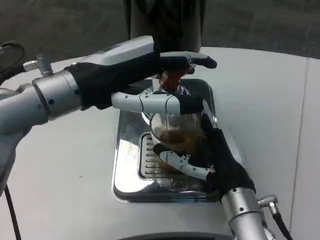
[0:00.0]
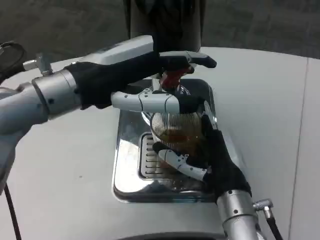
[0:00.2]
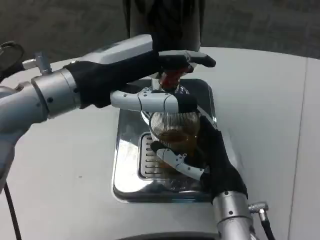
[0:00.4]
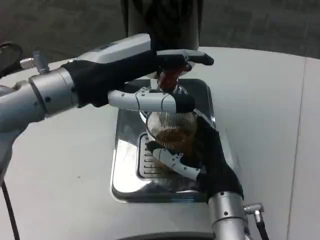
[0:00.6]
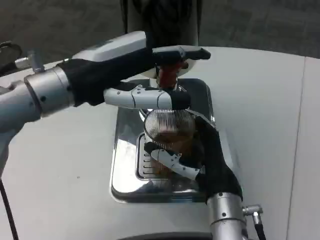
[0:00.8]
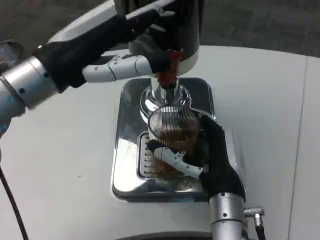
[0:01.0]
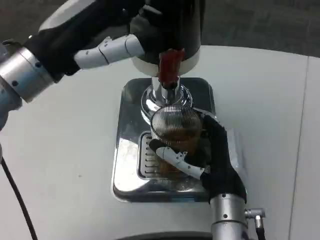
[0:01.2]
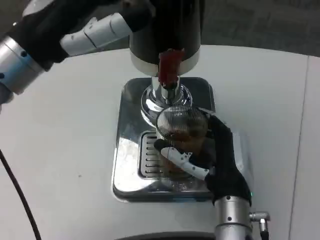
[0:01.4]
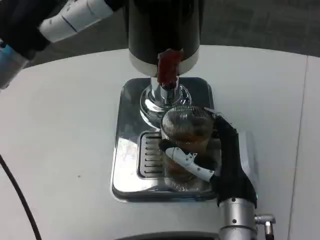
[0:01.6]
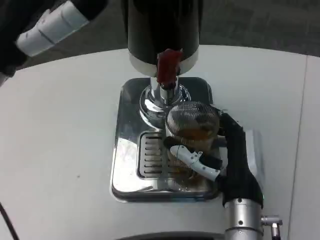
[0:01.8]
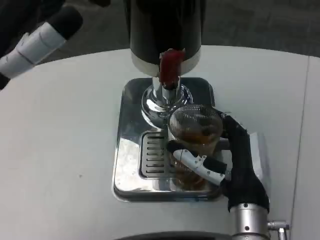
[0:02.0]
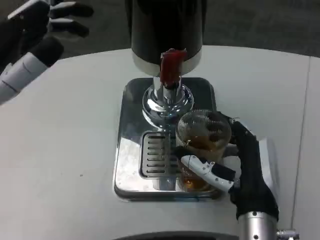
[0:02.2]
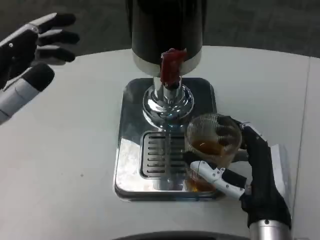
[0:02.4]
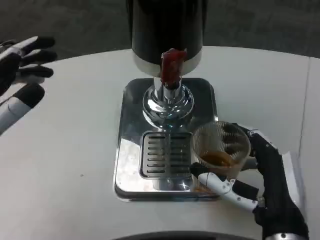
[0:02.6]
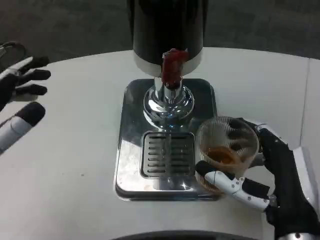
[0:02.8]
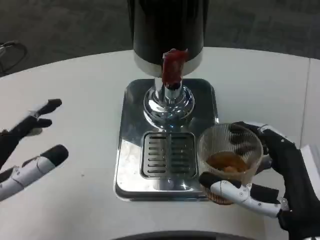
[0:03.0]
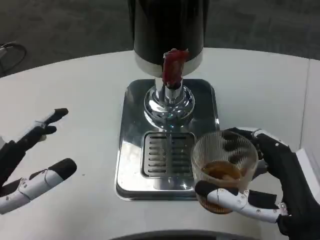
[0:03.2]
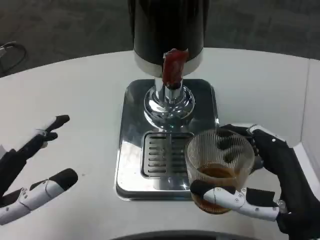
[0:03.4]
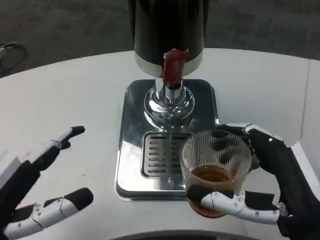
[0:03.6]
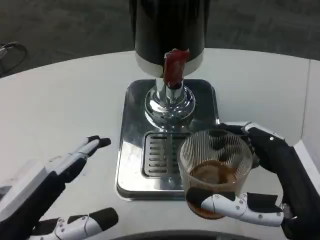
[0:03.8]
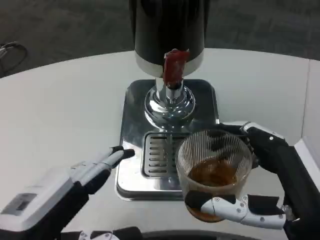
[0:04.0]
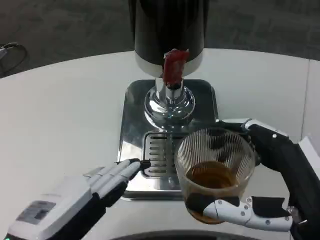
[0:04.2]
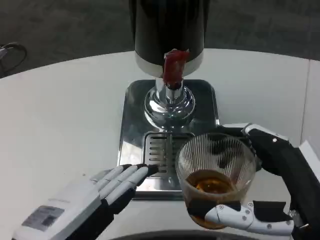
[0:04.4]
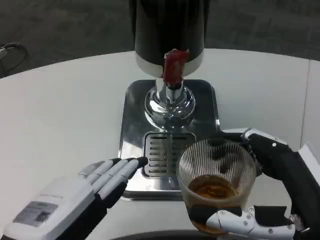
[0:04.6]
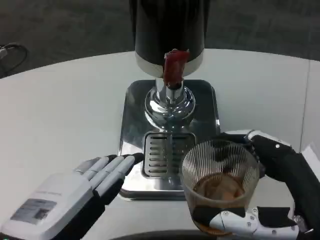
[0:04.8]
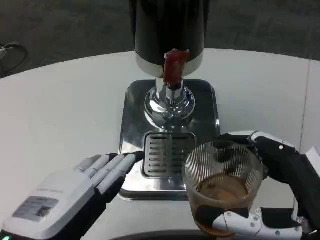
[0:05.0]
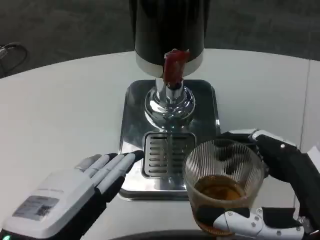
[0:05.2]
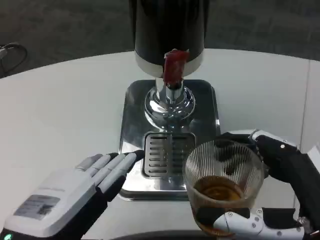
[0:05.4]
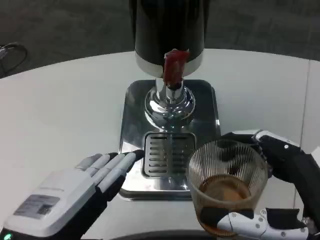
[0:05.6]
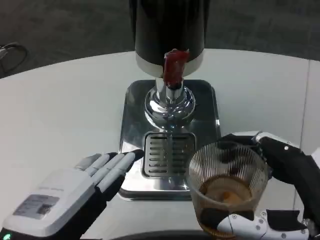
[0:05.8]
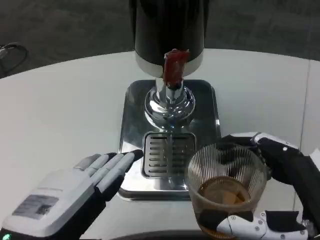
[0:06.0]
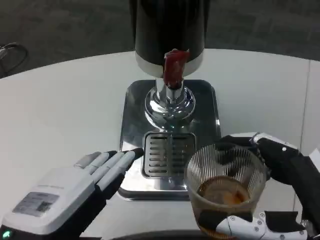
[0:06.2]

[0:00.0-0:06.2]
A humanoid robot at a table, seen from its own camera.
Task of the whole recording: Grasp the cup under the faucet to collect the drink, then remove the cup.
1.6 to 3.2 s: The left hand travels downward and backward by some 20 cm; the right hand is displaced backward and to the right by roughly 10 cm.
3.2 to 4.6 s: The right hand ends up approximately 5 cm from where it was; the left hand heads to the right, covering roughly 5 cm.
4.6 to 6.2 s: Both hands stay about where they are.

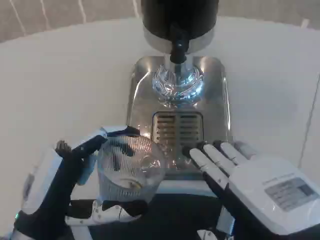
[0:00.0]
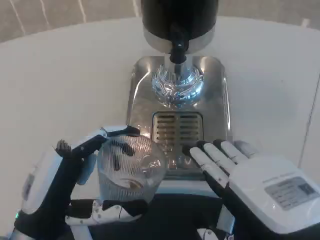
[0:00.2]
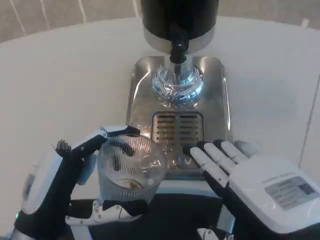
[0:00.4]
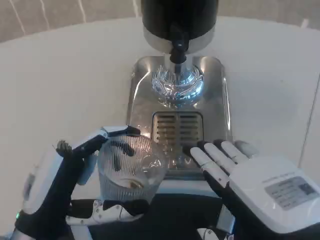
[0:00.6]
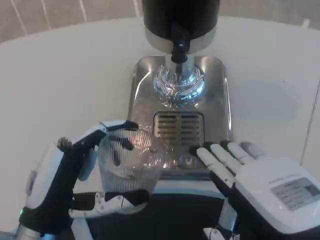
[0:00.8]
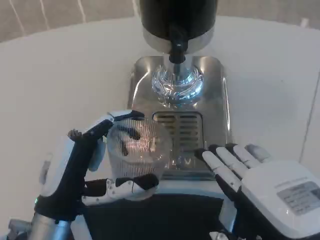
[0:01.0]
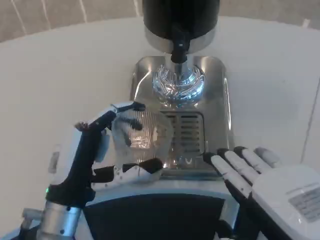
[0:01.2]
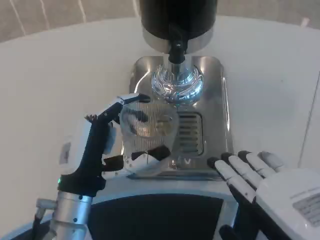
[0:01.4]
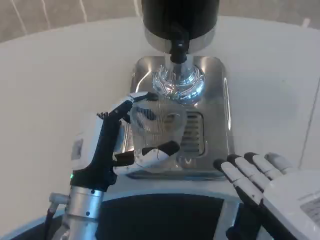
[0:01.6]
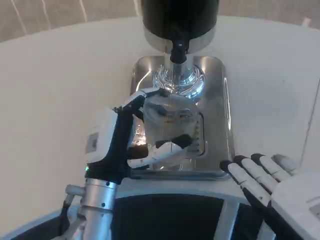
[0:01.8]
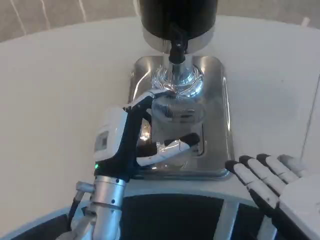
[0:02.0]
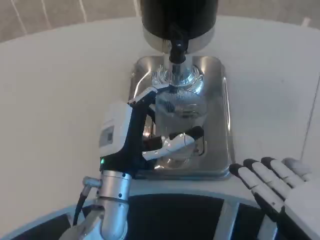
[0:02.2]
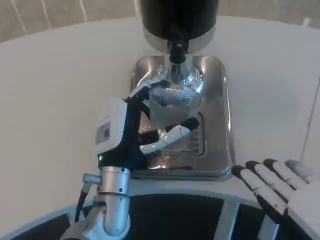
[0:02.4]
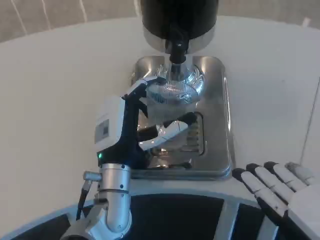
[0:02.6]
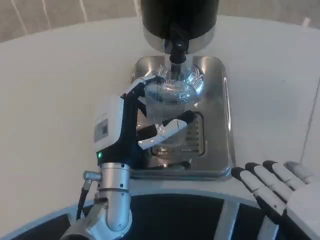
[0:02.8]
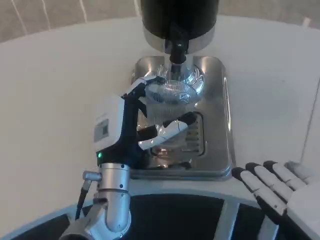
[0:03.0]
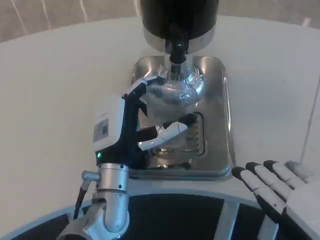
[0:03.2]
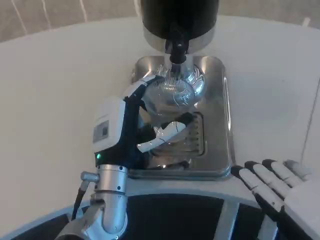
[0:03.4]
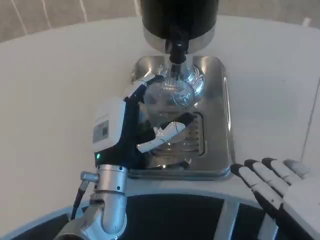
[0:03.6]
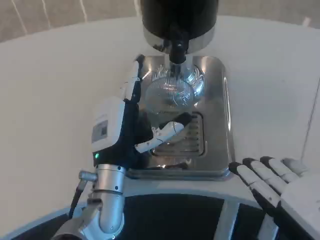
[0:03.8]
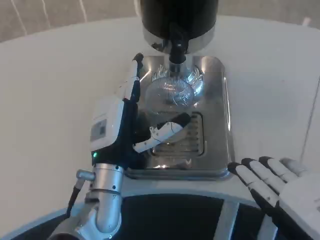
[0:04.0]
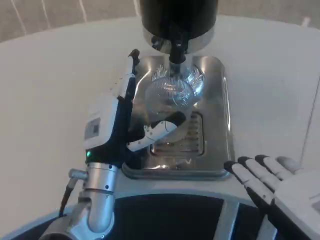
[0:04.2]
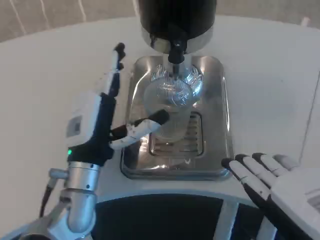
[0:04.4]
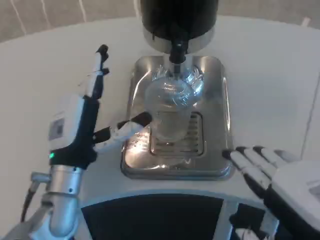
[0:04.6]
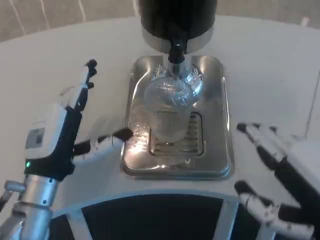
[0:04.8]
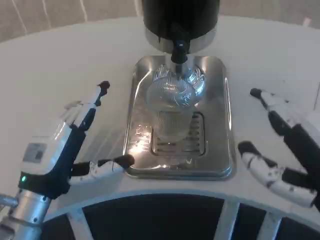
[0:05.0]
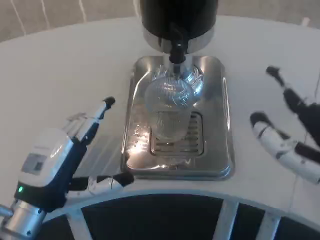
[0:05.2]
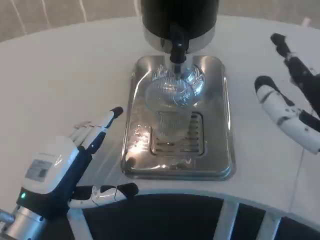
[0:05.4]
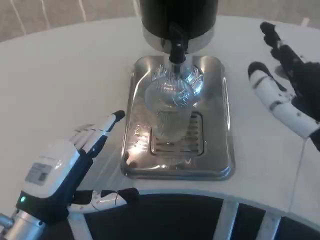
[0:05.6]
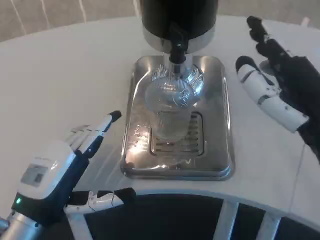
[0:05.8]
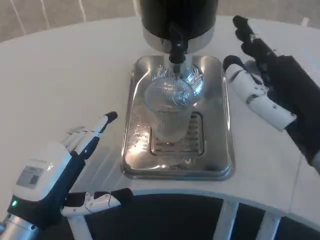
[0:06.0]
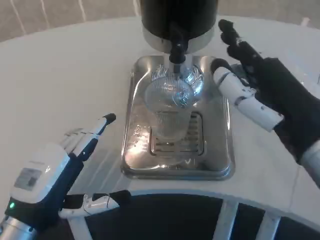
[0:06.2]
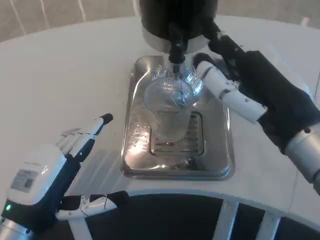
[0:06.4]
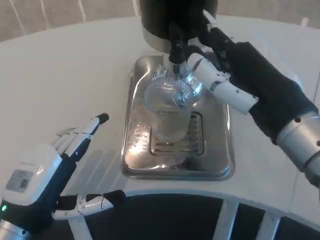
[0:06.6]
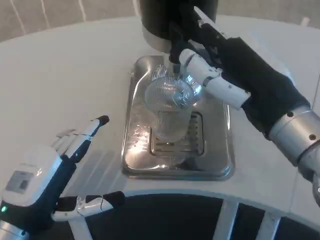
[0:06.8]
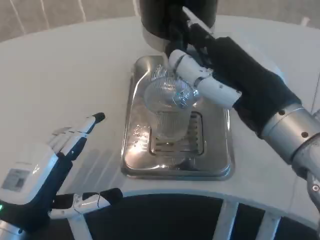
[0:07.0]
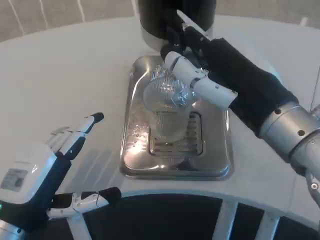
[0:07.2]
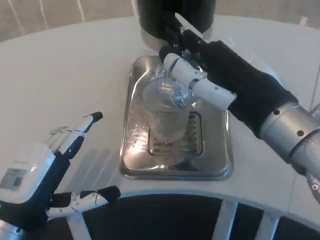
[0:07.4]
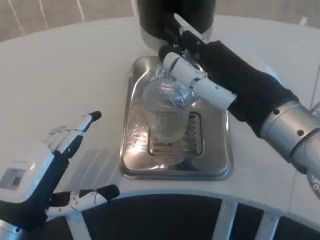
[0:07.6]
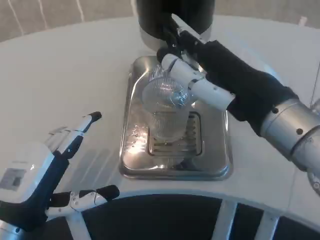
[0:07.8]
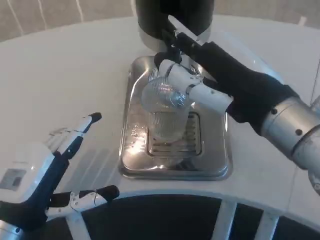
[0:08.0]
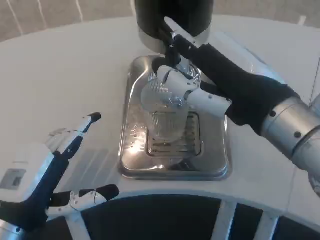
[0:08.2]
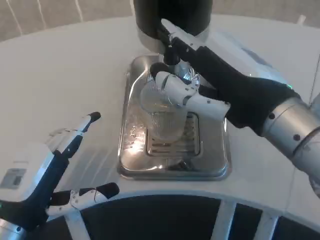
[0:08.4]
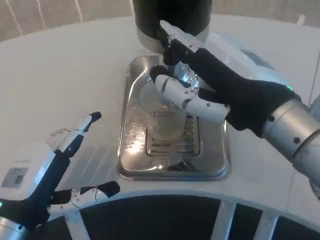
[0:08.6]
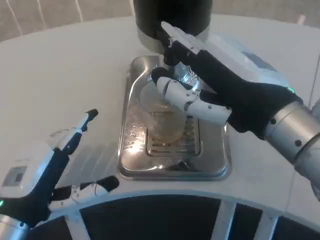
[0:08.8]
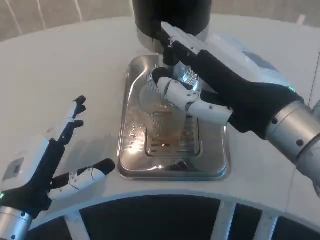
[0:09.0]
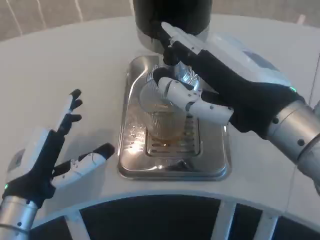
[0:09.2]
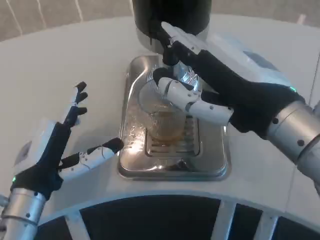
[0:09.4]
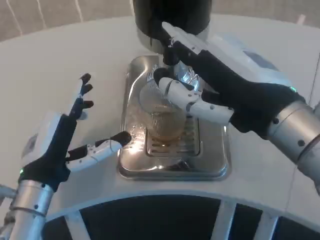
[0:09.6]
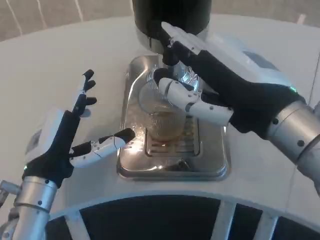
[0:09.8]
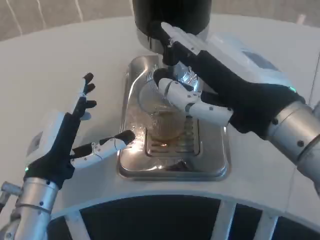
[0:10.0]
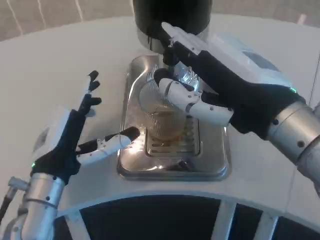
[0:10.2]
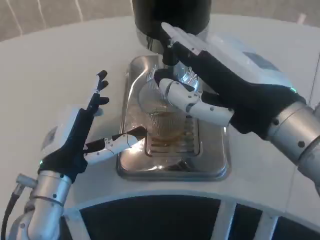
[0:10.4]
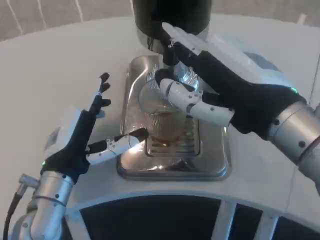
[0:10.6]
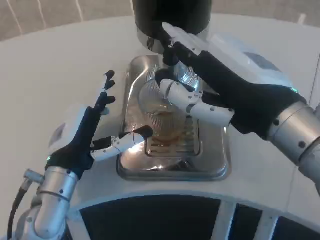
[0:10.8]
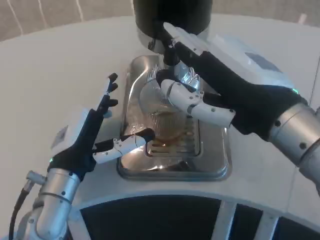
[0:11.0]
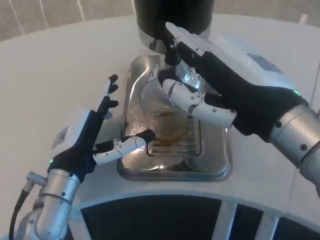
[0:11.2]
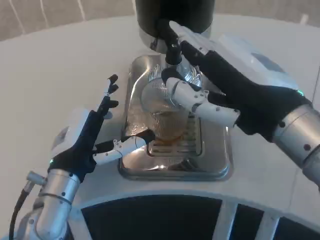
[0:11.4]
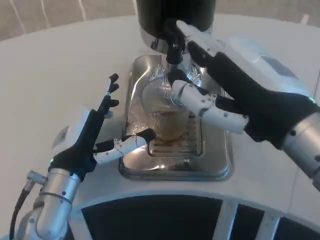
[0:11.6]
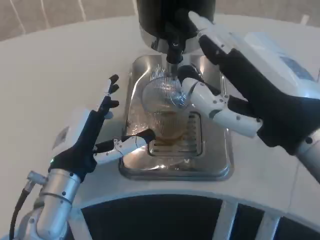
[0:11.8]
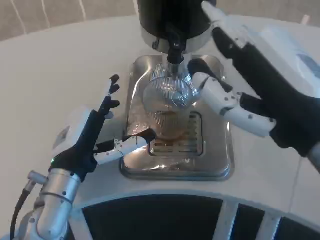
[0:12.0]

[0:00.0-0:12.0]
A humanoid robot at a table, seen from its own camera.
Task of the whole recording: Grasp the cup under the faucet to collect the drink, then remove the cup.
0.0 to 1.6 s: The left hand heads forward and to the right, covering roughly 10 cm.
1.6 to 3.0 s: The left hand moves roughly 5 cm.
3.0 to 4.4 s: The left hand moves to the left, some 5 cm.
4.4 to 6.0 s: The left hand is displaced to the left and backward by about 10 cm; the right hand heads forward, covering about 10 cm.
6.0 to 7.6 s: The right hand shifts by some 5 cm.
9.0 to 10.4 s: The left hand changes place by some 5 cm.

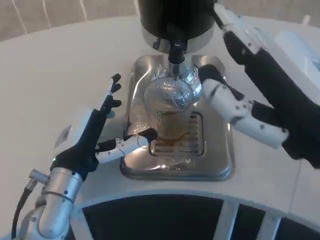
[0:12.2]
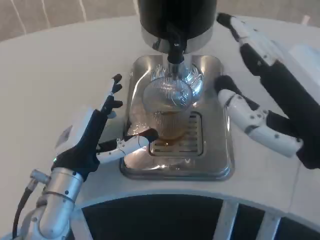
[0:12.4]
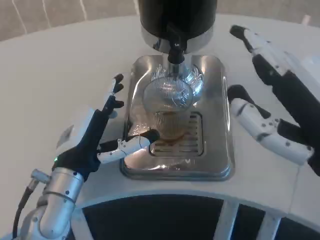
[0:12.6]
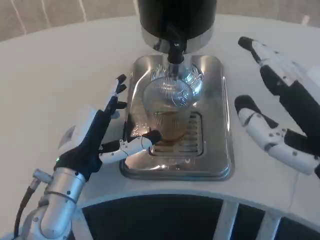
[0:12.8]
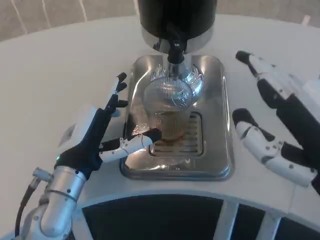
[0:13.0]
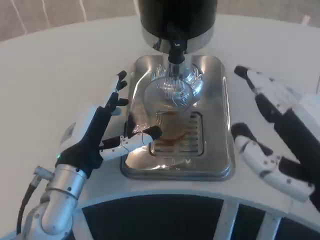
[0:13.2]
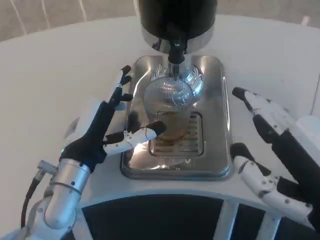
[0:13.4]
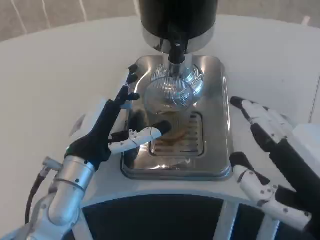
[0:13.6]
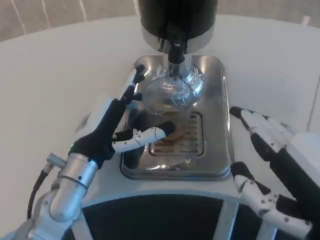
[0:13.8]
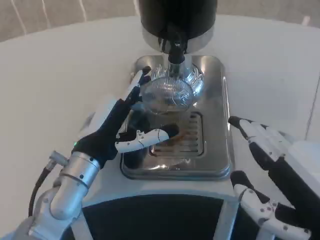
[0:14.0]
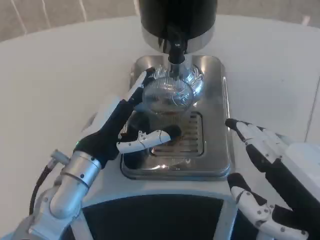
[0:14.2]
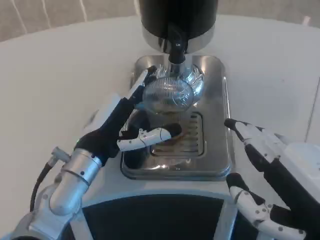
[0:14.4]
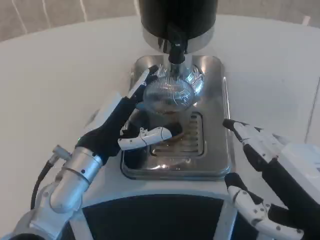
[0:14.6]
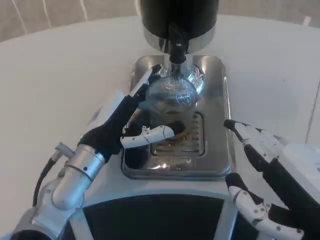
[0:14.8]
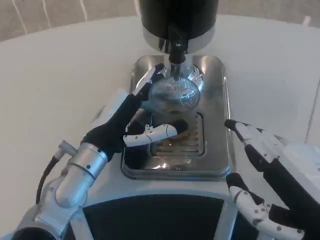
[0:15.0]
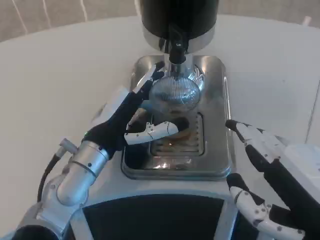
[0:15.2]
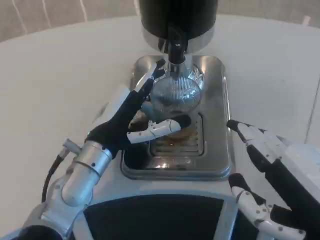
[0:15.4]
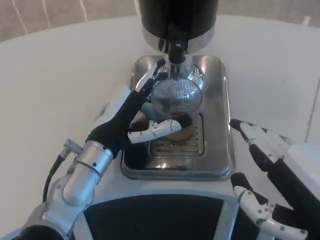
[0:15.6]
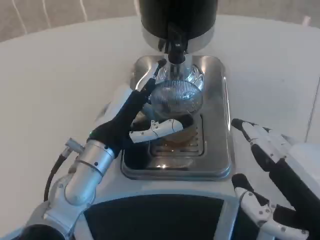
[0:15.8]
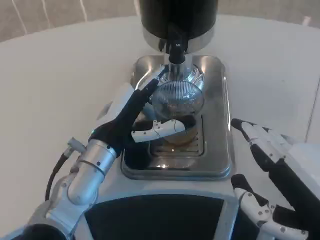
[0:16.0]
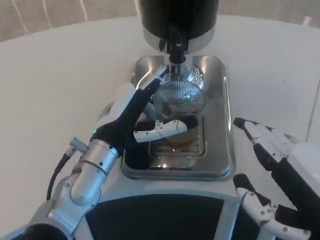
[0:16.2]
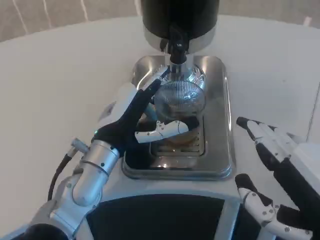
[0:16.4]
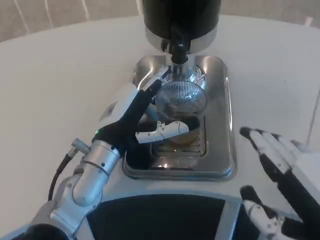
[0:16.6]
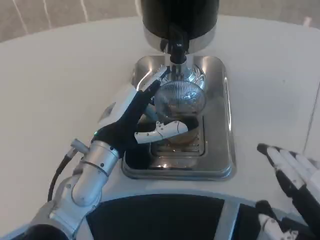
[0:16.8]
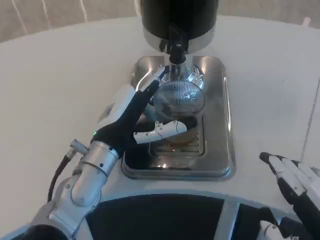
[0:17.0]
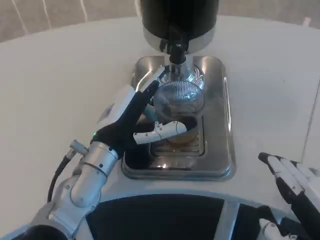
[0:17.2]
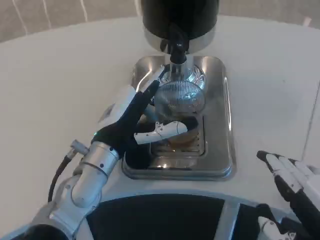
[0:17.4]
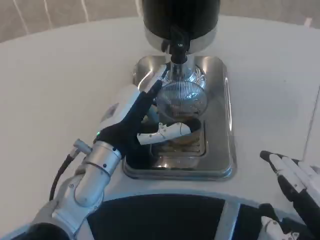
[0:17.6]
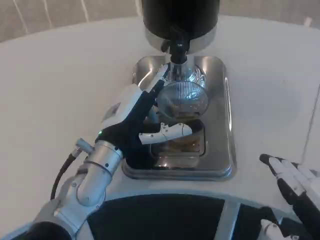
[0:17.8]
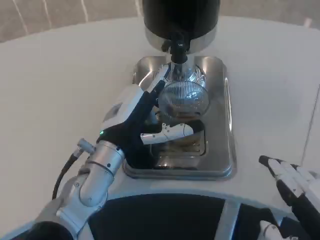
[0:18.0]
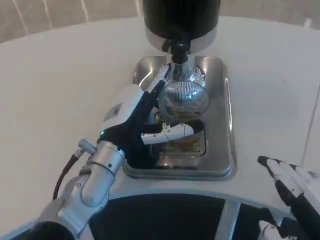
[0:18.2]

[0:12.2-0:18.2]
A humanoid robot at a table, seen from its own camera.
Task of the whole recording: Grasp the cup under the faucet to collect the drink, then remove the cup.
12.2 to 13.8 s: The right hand travels downward by about 5 cm.
13.8 to 18.2 s: The hands move only a little.
